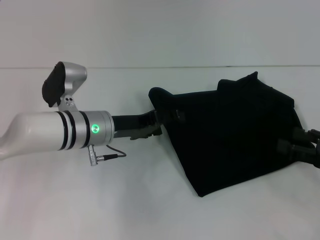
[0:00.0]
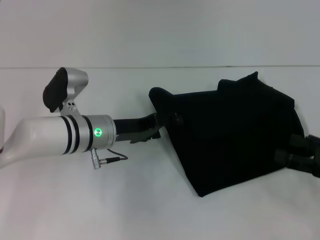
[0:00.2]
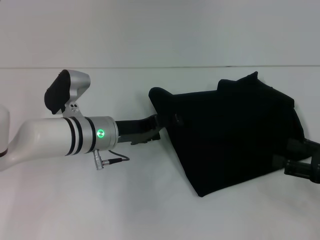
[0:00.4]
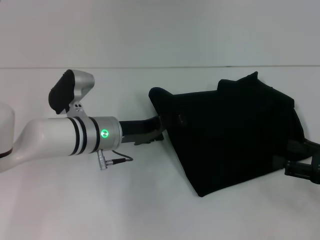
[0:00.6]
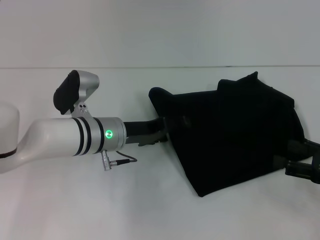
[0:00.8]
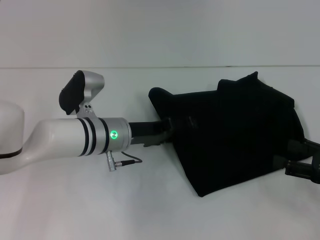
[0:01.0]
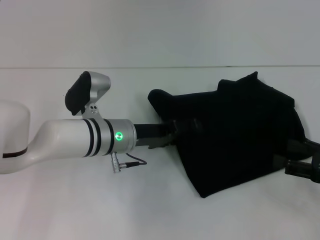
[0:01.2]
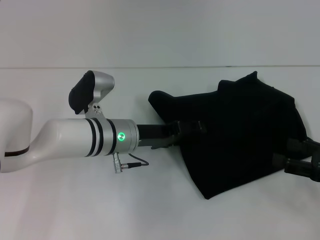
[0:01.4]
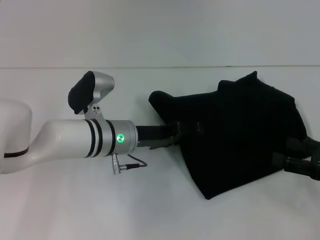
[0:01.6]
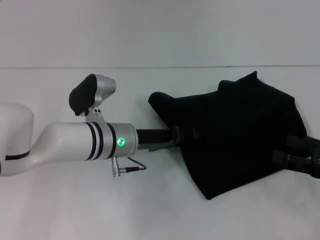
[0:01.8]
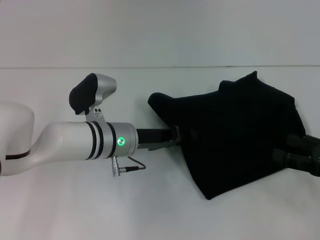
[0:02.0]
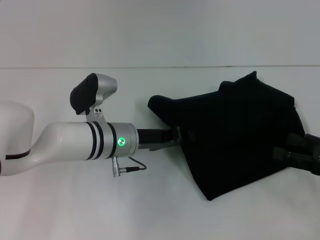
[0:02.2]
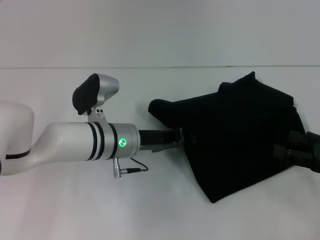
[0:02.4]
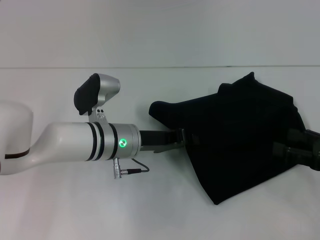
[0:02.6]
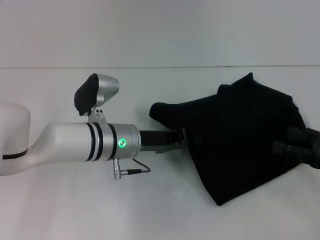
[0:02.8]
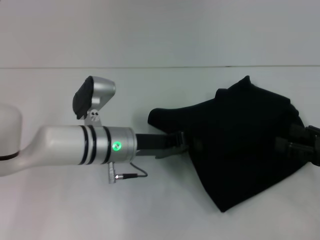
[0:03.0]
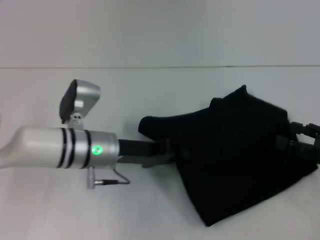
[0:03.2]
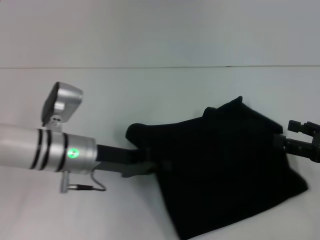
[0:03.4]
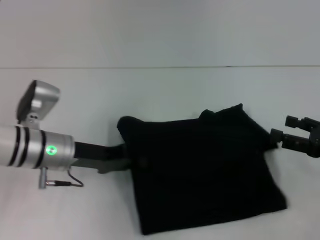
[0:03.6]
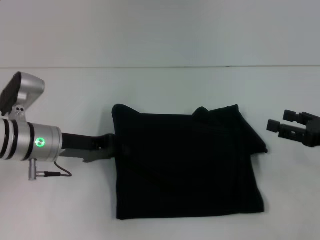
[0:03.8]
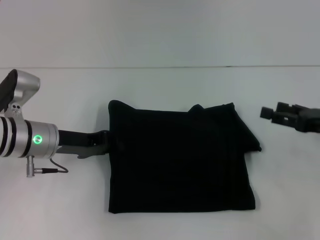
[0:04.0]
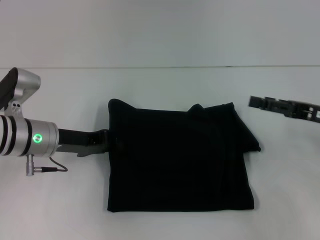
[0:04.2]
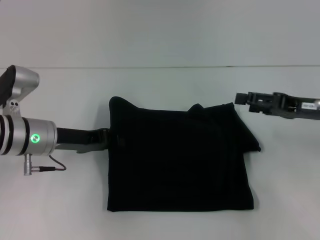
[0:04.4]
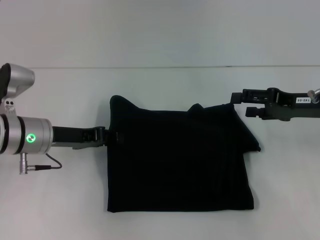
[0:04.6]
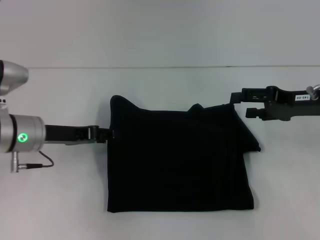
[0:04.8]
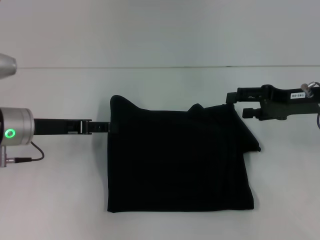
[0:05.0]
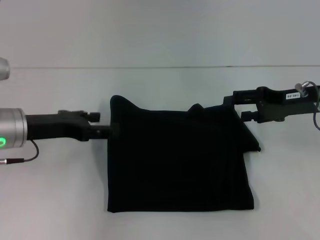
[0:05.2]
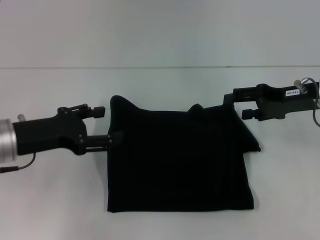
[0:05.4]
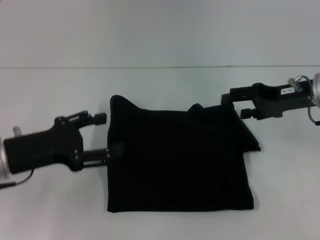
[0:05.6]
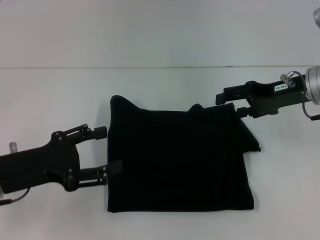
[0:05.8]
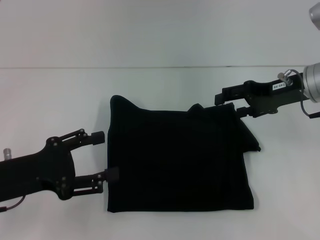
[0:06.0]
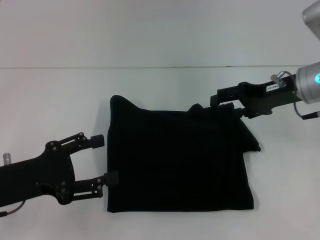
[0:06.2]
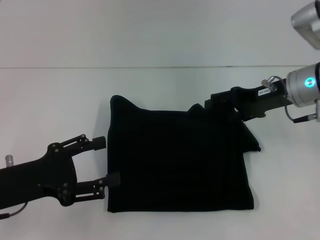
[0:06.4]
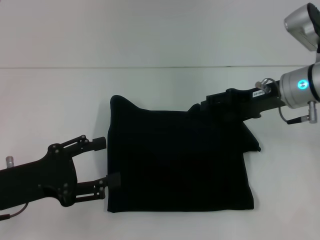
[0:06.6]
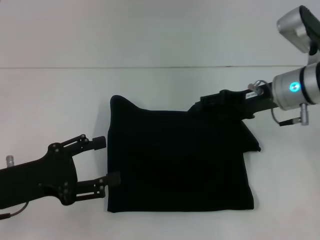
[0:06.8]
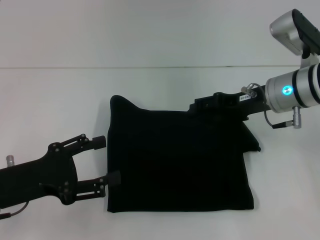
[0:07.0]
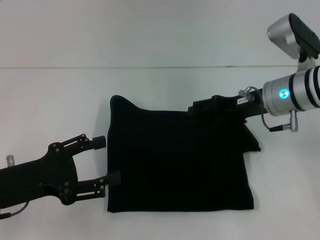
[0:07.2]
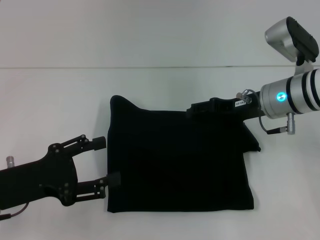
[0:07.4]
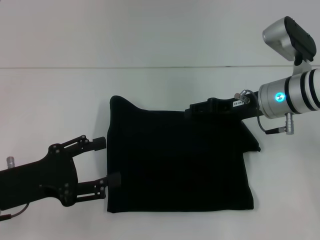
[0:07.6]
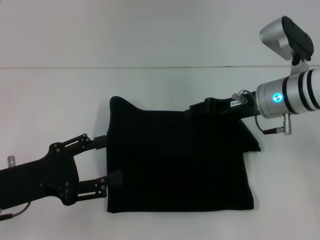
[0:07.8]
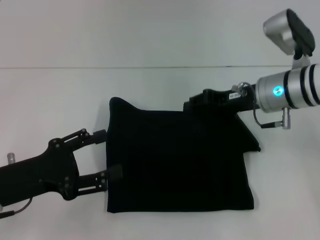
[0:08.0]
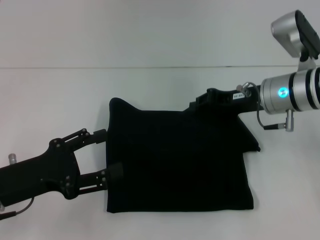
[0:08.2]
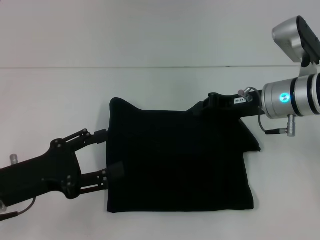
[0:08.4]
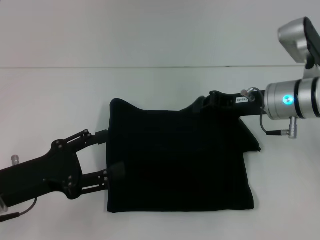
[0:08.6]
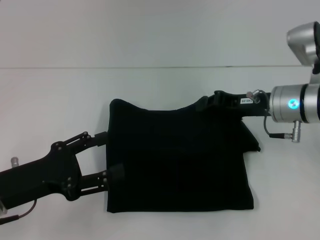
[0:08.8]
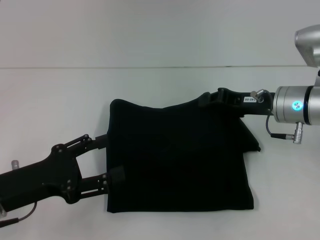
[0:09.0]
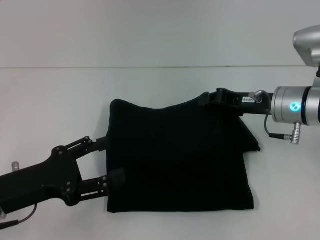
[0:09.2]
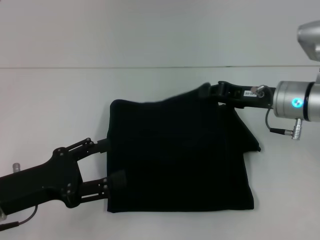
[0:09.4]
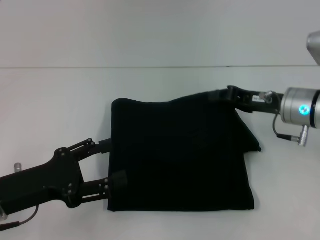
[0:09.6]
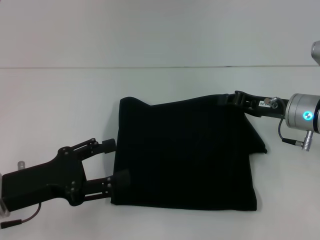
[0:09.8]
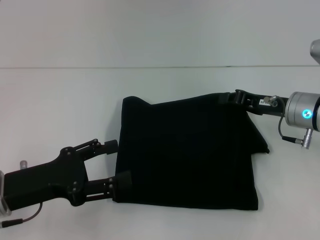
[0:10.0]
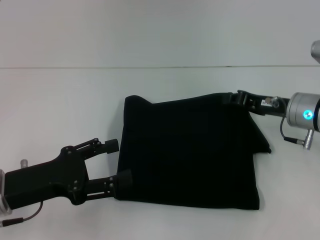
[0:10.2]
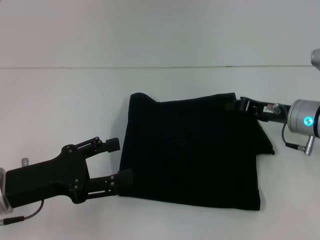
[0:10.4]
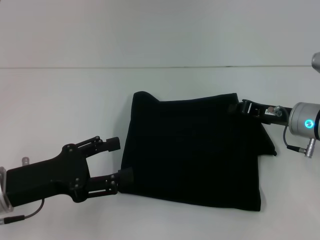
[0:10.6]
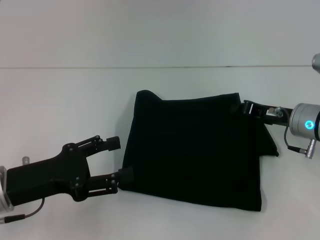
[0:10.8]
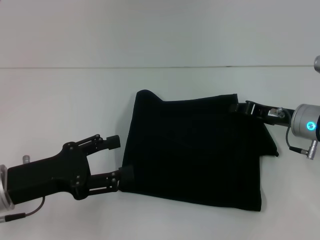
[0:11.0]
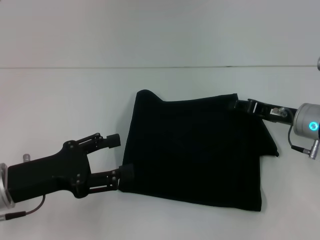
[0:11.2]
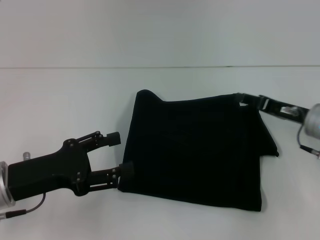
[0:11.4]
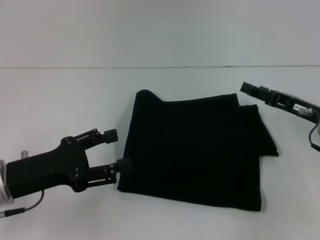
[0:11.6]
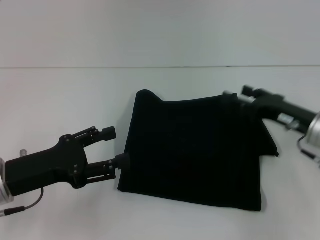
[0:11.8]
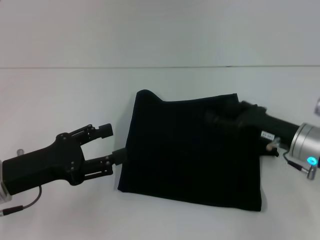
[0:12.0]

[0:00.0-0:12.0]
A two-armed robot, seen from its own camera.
0:00.0 to 0:01.6: The grippers make only small movements.
0:01.6 to 0:03.0: The left gripper closes up.
0:03.0 to 0:04.4: The right gripper is displaced forward and to the left by roughly 10 cm; the left gripper travels to the left by some 10 cm.
0:04.4 to 0:06.0: The right gripper goes roughly 5 cm forward. The left gripper is displaced backward by about 10 cm, and opens up.
0:06.0 to 0:07.6: The right gripper shifts roughly 5 cm to the left.
0:07.6 to 0:09.0: The right gripper closes up.
0:09.0 to 0:10.4: The grippers move only a little.
0:10.4 to 0:12.0: The right gripper shifts by about 5 cm, and opens.

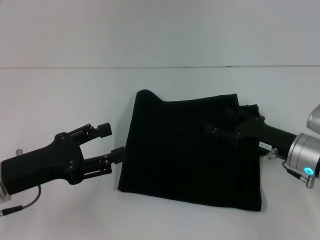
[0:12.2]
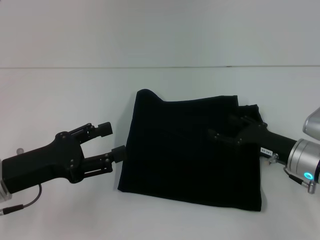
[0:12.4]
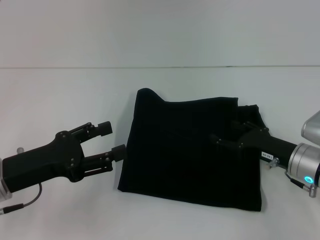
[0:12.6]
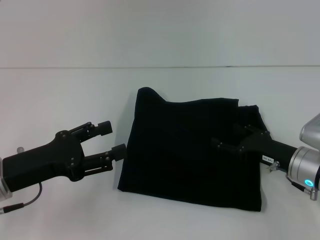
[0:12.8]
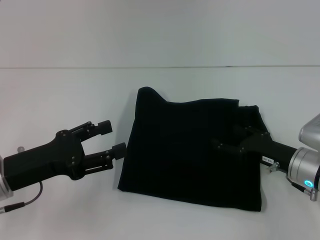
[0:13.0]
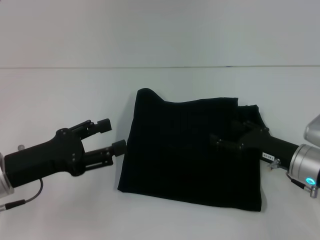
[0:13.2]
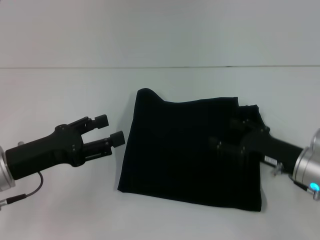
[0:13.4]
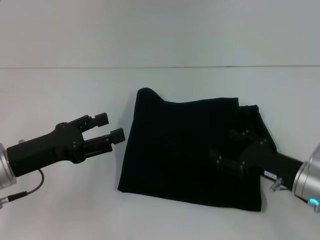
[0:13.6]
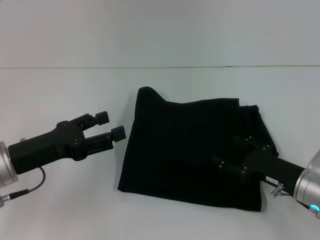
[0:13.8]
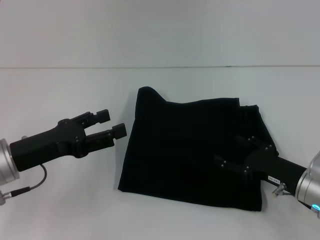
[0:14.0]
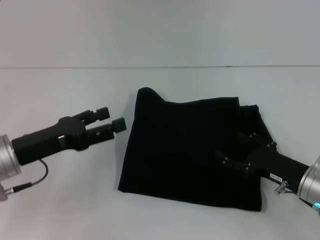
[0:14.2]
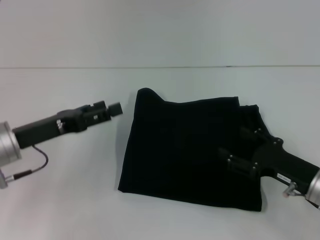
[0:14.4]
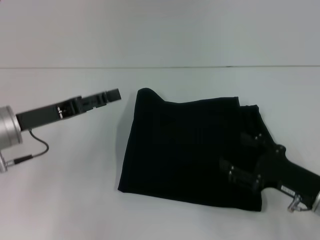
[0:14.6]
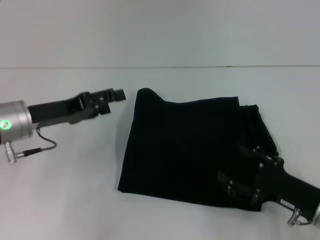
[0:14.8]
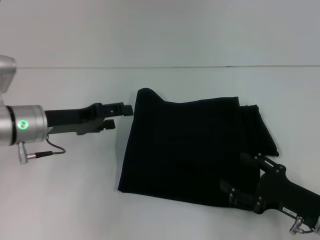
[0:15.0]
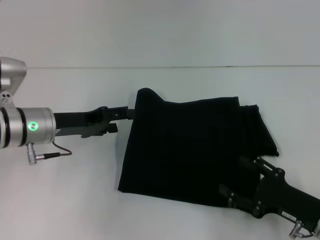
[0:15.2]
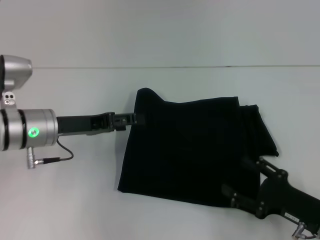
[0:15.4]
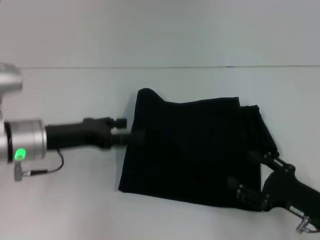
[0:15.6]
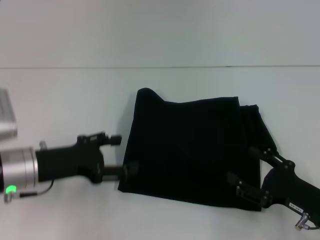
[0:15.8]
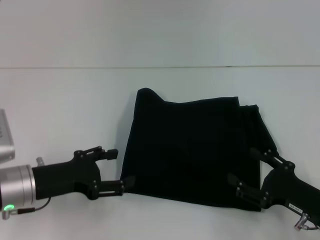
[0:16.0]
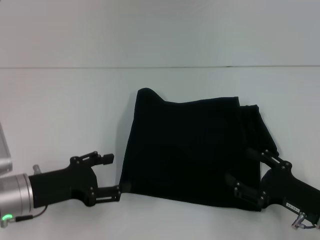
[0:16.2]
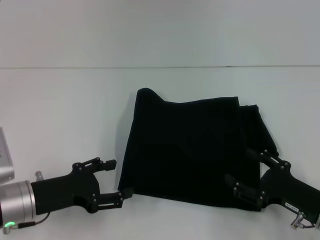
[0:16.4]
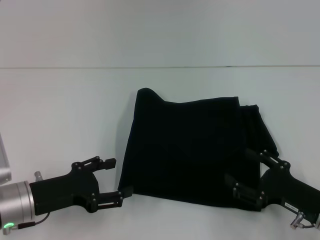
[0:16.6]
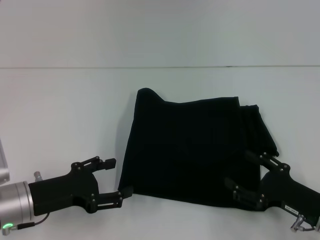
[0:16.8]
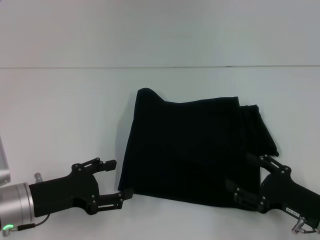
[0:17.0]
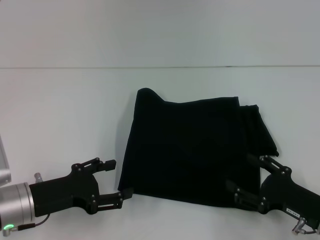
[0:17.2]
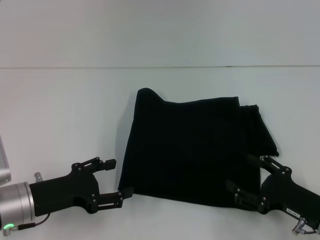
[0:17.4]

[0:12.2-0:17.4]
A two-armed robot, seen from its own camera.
0:12.2 to 0:14.0: The right gripper changes place by some 5 cm.
0:14.0 to 0:15.6: The right gripper moves backward, approximately 5 cm.
0:15.6 to 0:17.4: The left gripper shifts roughly 10 cm backward and downward.
